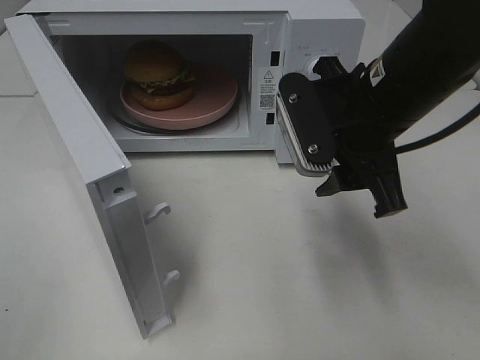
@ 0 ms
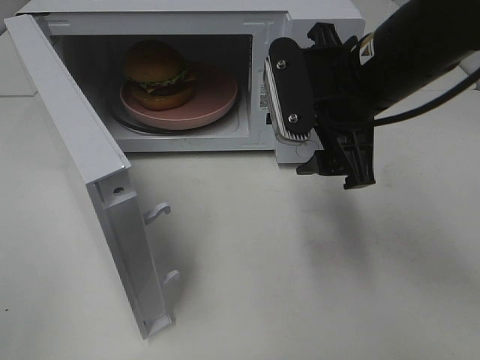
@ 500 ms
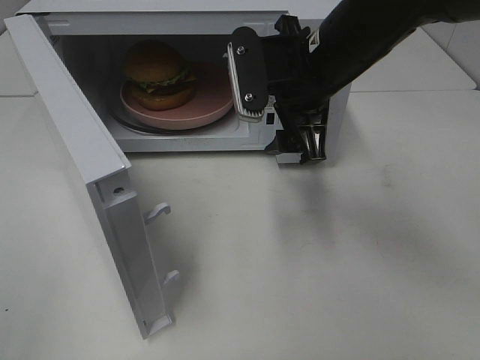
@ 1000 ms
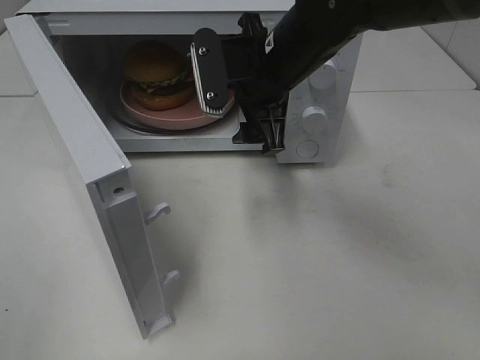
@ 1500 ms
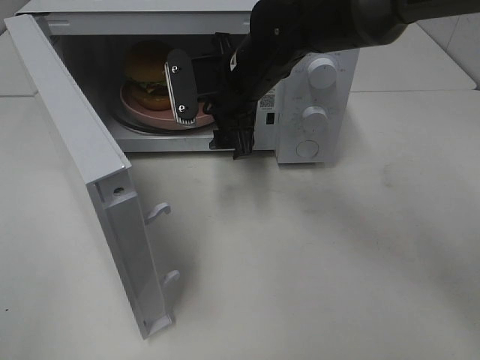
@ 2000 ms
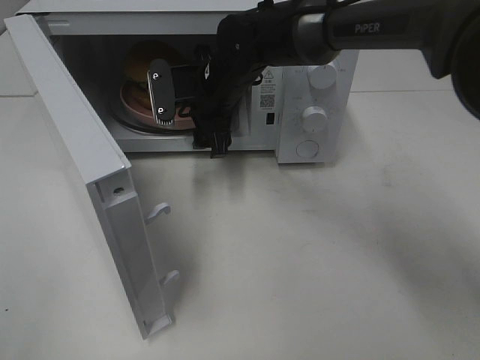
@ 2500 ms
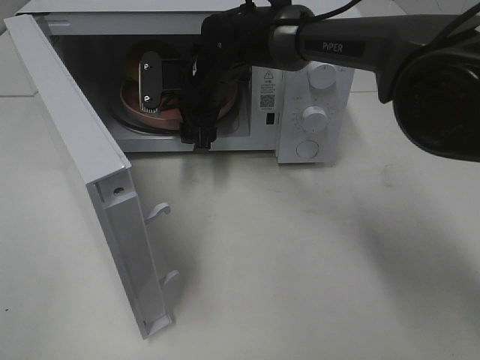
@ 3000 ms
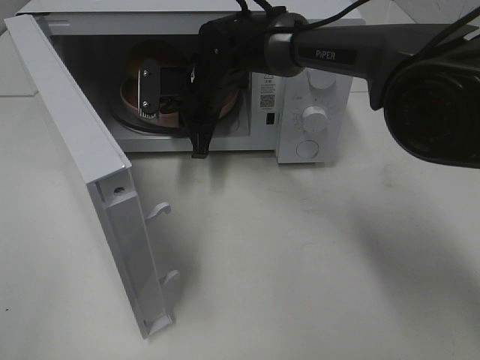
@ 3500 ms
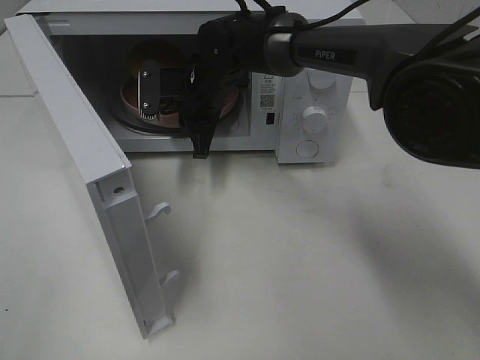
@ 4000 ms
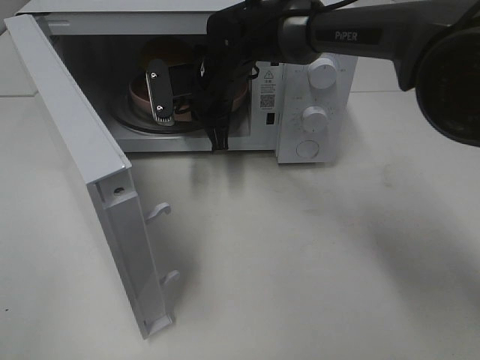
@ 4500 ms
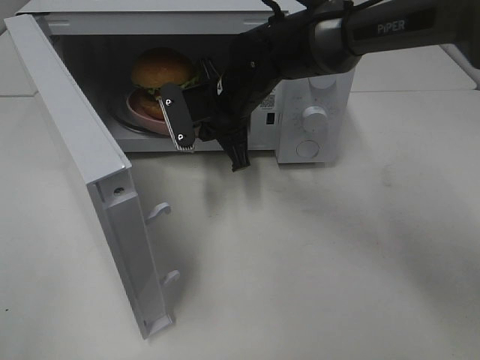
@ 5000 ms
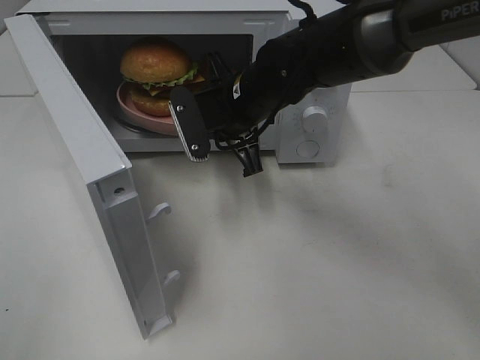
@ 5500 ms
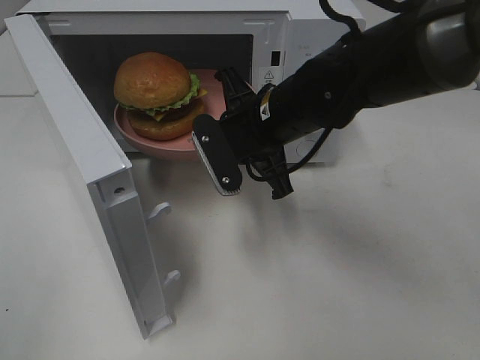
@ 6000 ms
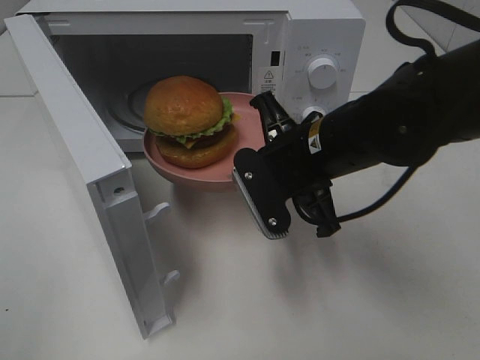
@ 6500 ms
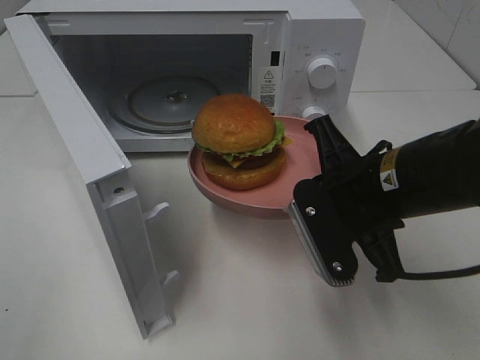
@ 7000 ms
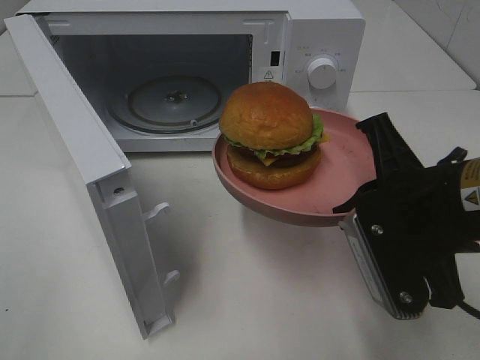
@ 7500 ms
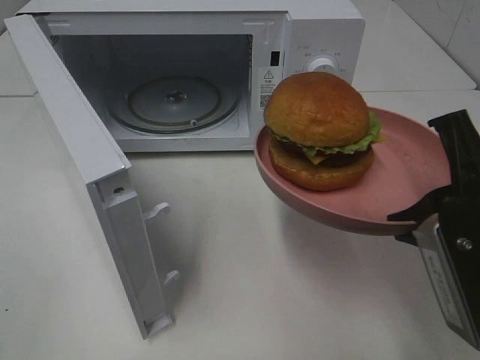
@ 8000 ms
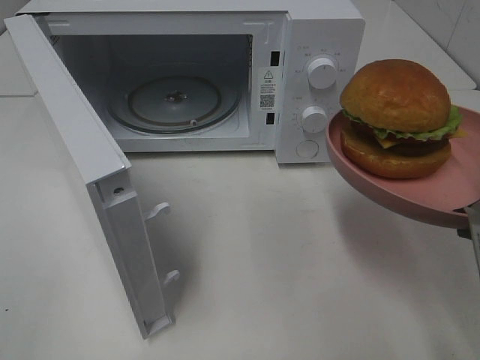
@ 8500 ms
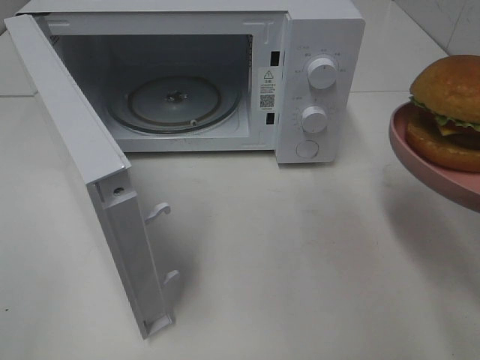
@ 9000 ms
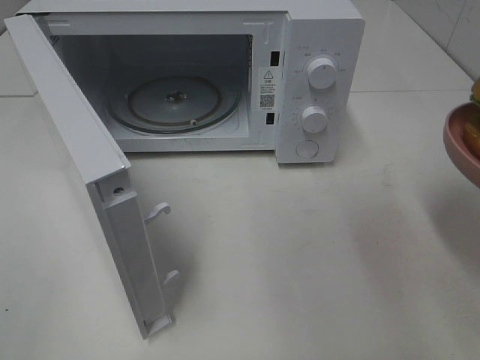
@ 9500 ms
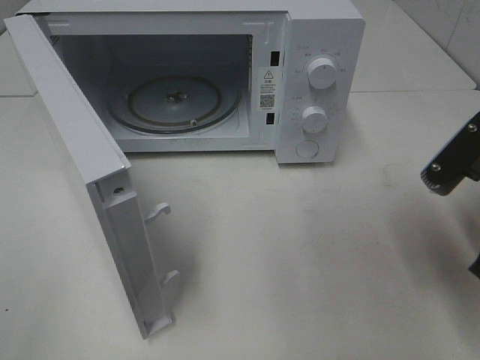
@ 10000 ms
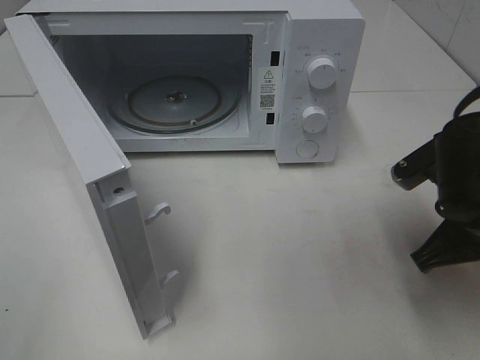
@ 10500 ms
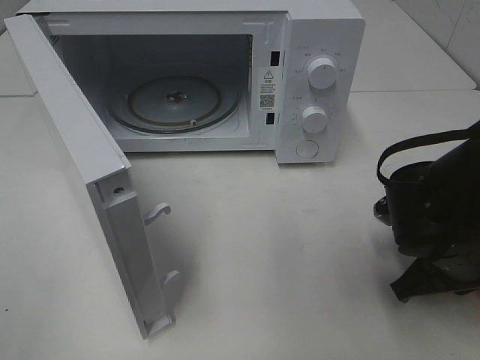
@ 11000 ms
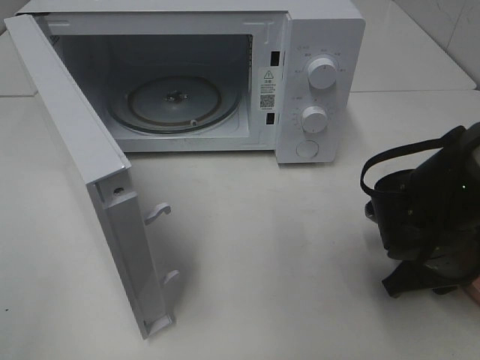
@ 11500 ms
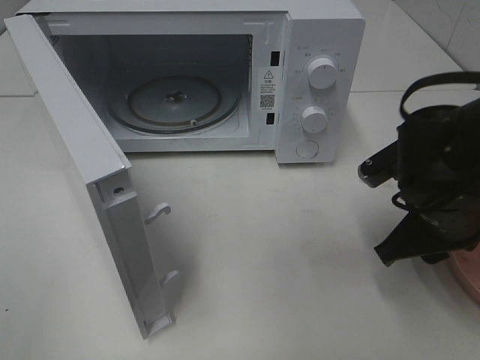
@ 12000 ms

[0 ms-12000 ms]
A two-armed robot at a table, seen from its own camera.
Task of the whole recording: Heat the burger.
Step, 0 ms to 4500 ms: Right hand: grab the plate with the hamburger.
Step, 5000 ms to 11500 ms: Right hand: place the plate on the table.
0 ms to 2000 ms: The right gripper travels forward, to the left and downward by about 15 cm.
2000 ms to 4000 ms: The right gripper moves forward, approximately 5 cm, and closes its fingers.
4000 ms to 6000 ms: The right gripper heads backward and to the right, covering about 15 cm.
6000 ms to 8000 ms: The right gripper moves backward and to the right, some 25 cm.
8000 ms to 10000 ms: The right gripper moves roughly 5 cm.
10000 ms to 12000 ms: The right gripper shifts some 5 cm downward, and opens its fingers.

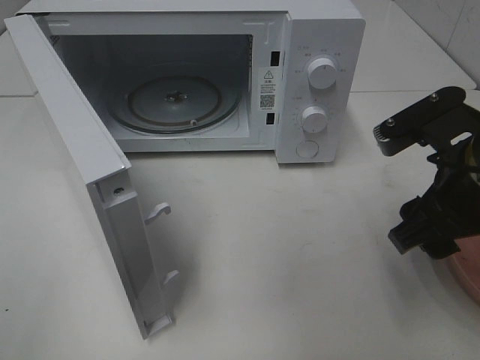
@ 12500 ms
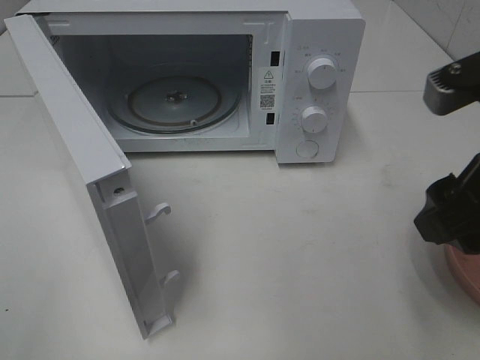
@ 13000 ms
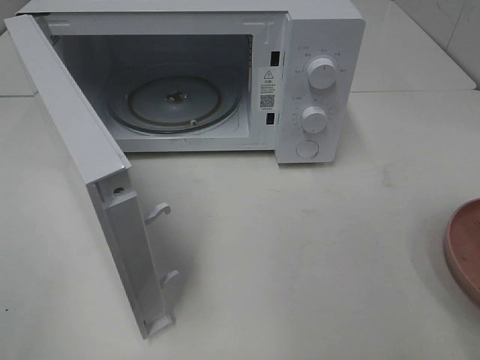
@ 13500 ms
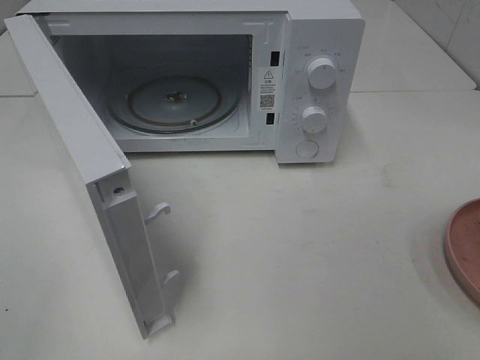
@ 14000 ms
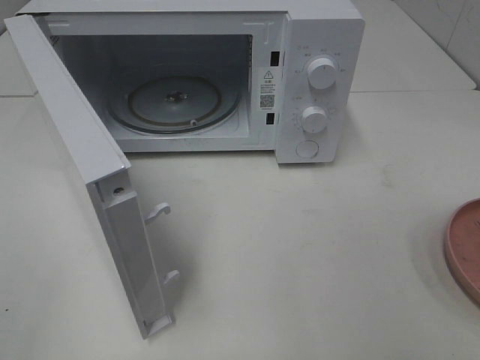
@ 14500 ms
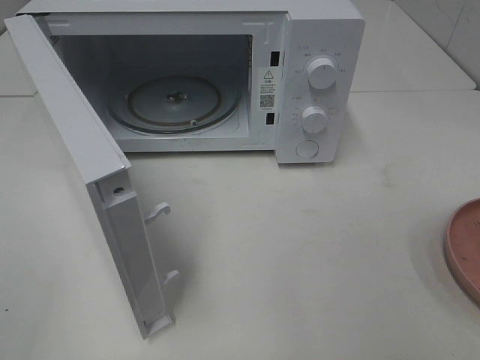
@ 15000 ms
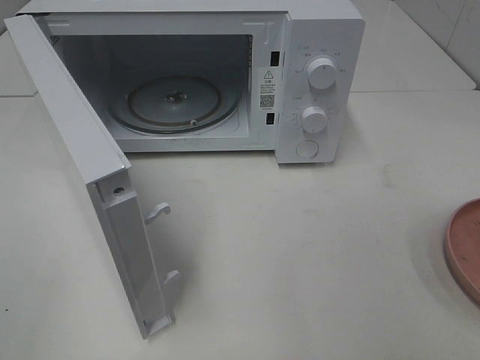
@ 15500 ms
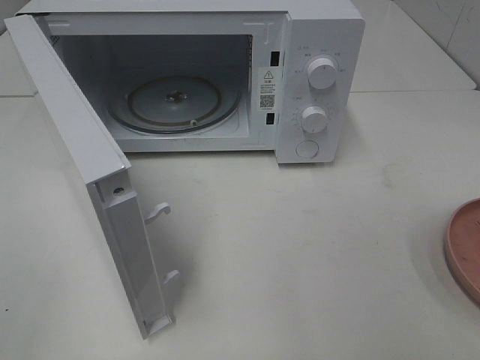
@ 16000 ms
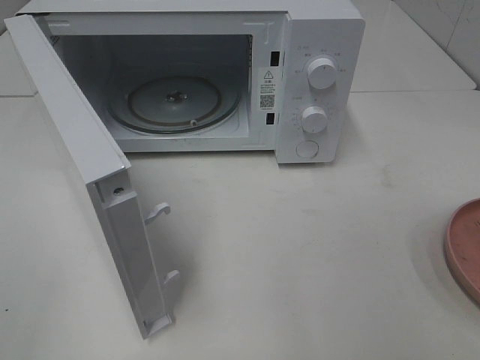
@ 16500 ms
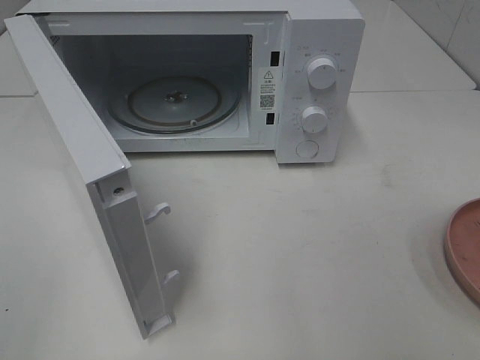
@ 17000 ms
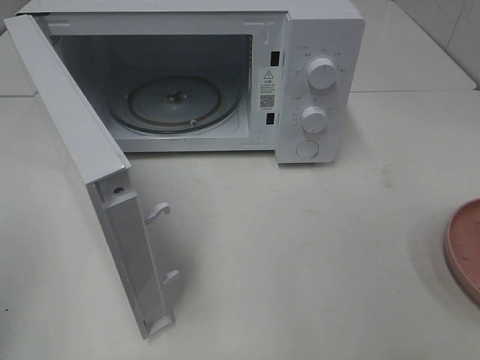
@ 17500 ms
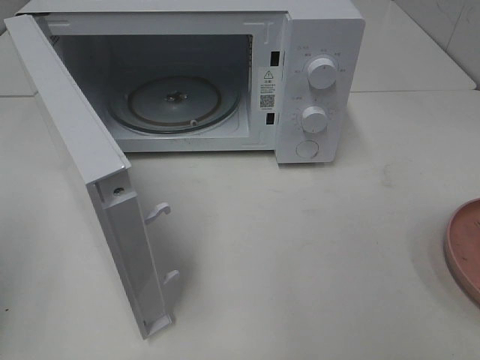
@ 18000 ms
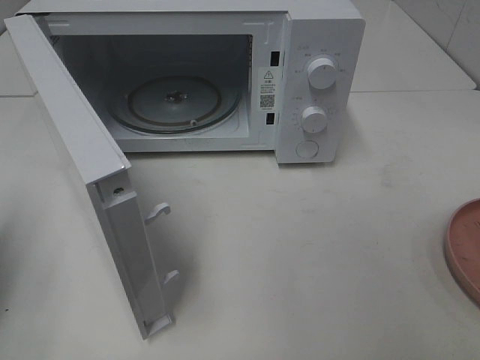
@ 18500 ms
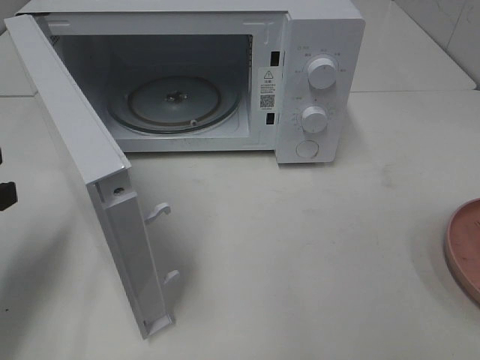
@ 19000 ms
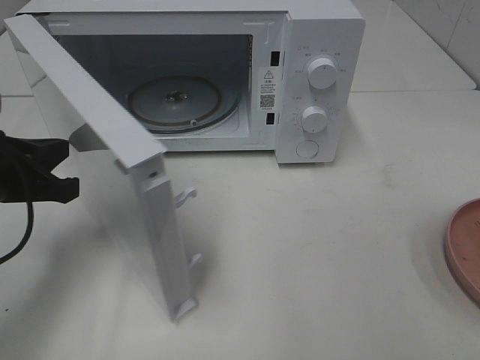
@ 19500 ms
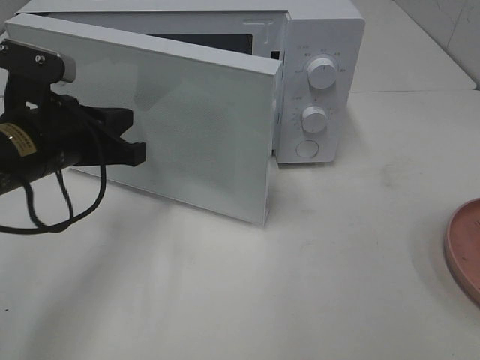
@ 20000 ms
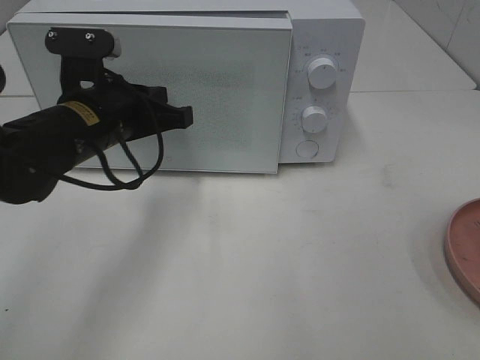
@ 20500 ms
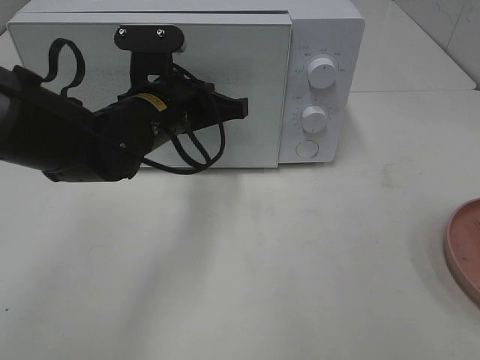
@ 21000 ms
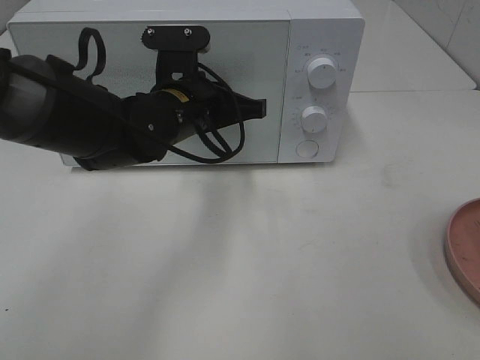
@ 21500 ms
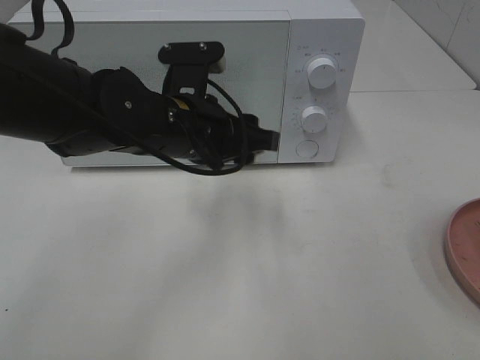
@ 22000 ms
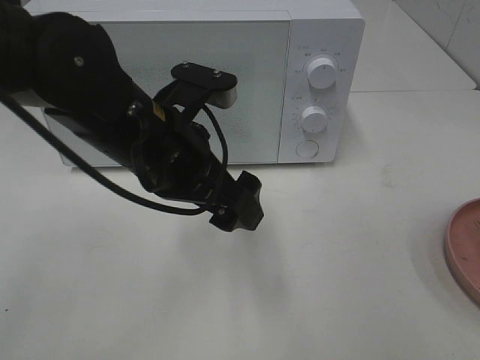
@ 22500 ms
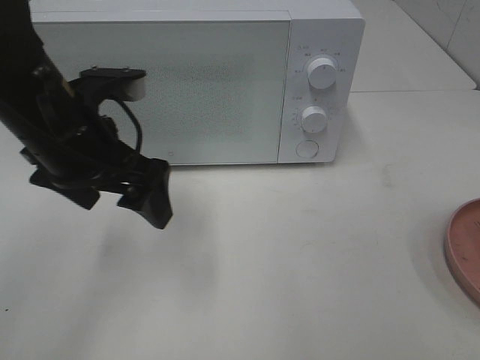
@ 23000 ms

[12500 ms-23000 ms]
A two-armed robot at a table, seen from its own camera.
Task of the whole recording: Heat the burger.
Step, 12500 ms to 21500 ms: Left hand: close the microwave door.
12500 ms to 14500 ms: The right gripper shifts about 20 cm backward and to the right.
16500 ms to 19000 ms: The left gripper moves forward and downward, about 25 cm, and closes.
19000 ms to 21000 ms: The left gripper shifts about 25 cm to the right and forward.
21000 ms to 23000 ms: The left gripper shifts some 10 cm to the left and backward, and opens.

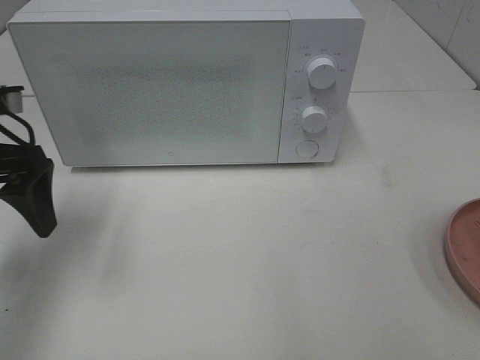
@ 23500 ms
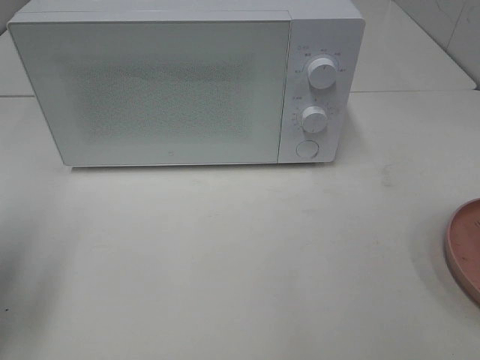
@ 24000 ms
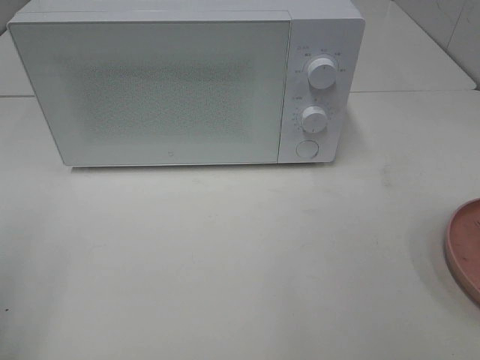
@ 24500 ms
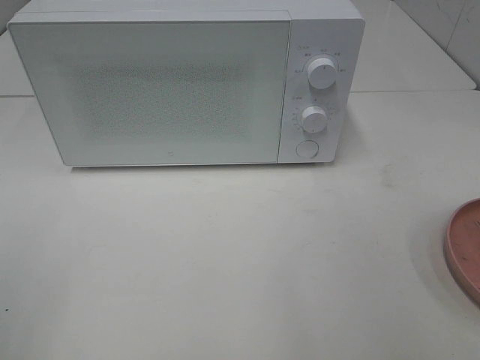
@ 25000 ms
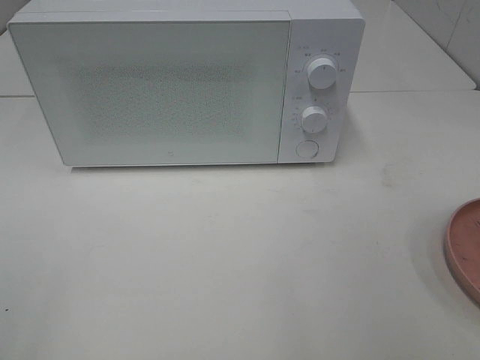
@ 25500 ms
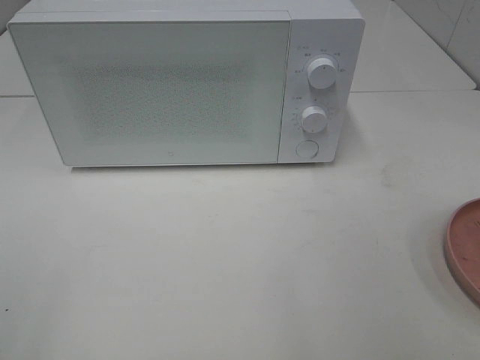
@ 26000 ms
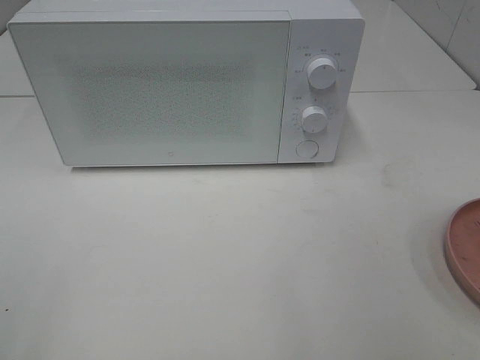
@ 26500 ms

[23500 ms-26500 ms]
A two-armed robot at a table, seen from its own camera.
Task of the whole recording: Heat the burger.
23500 ms to 25000 ms: The left gripper is displaced backward by roughly 25 cm.
